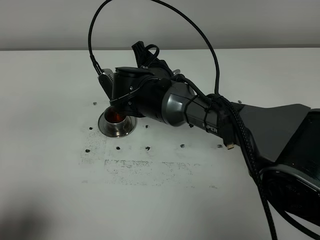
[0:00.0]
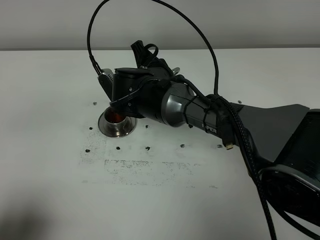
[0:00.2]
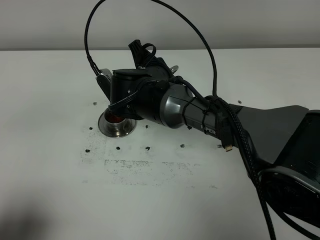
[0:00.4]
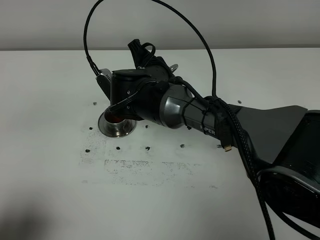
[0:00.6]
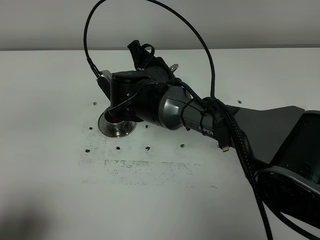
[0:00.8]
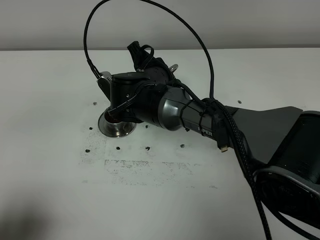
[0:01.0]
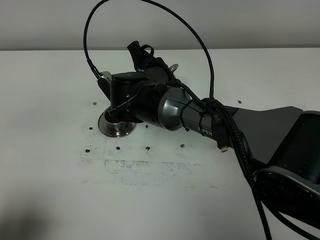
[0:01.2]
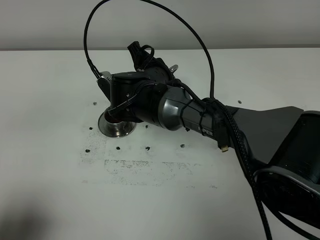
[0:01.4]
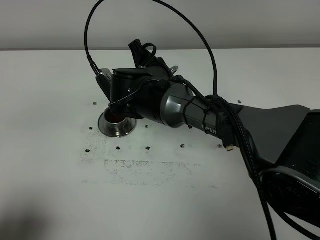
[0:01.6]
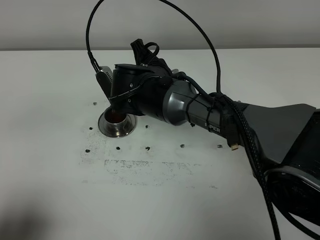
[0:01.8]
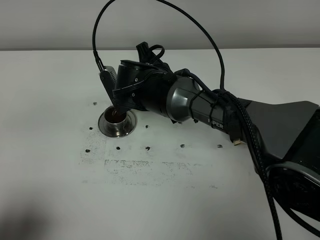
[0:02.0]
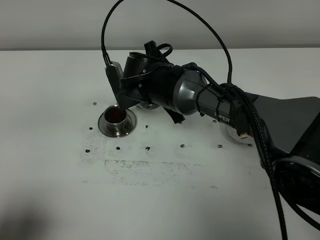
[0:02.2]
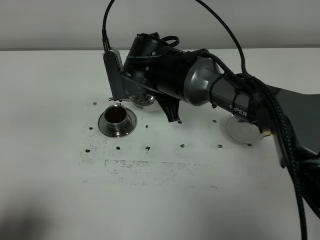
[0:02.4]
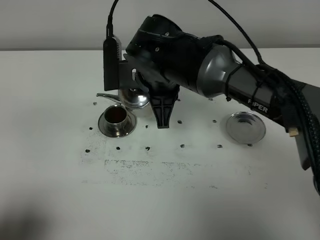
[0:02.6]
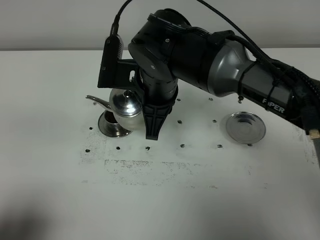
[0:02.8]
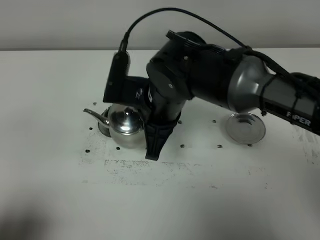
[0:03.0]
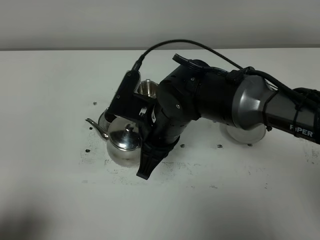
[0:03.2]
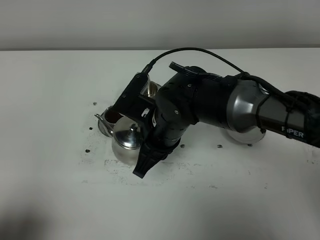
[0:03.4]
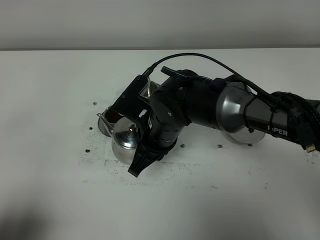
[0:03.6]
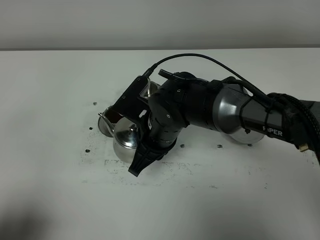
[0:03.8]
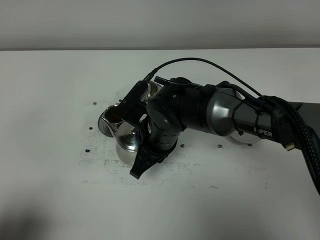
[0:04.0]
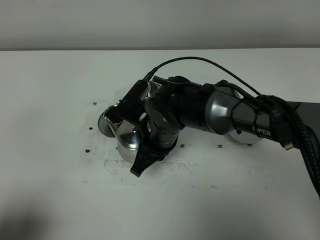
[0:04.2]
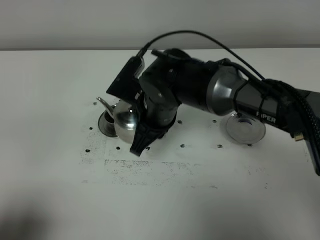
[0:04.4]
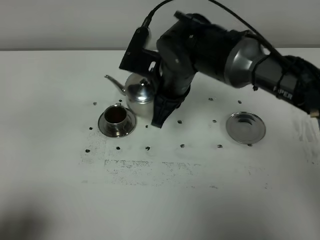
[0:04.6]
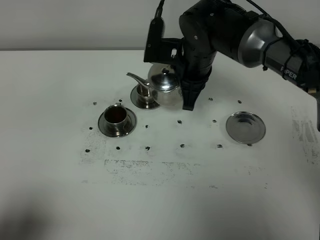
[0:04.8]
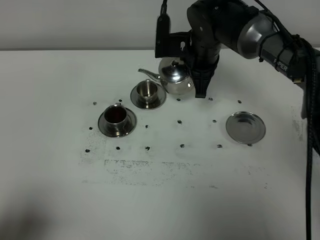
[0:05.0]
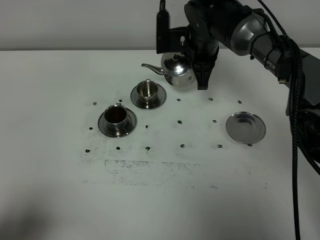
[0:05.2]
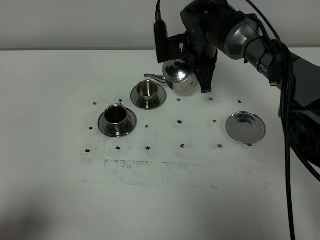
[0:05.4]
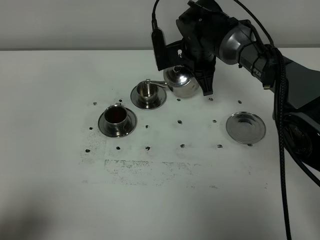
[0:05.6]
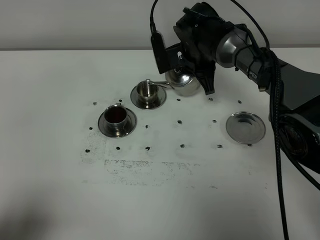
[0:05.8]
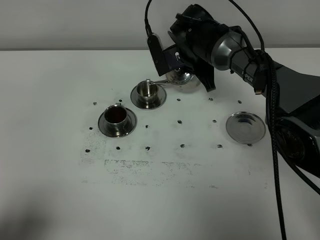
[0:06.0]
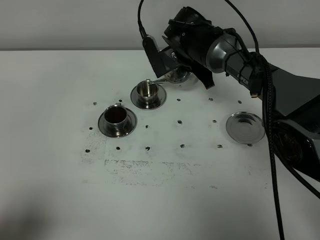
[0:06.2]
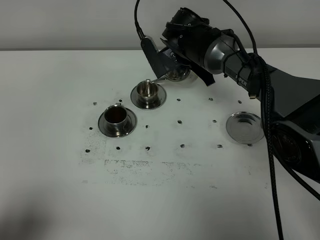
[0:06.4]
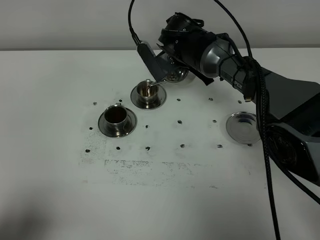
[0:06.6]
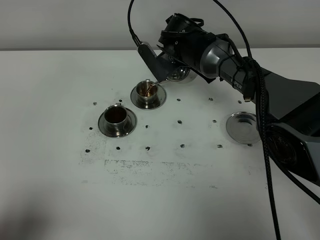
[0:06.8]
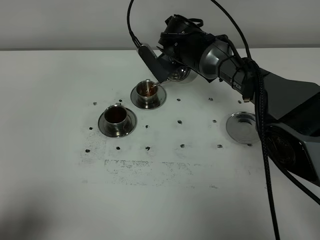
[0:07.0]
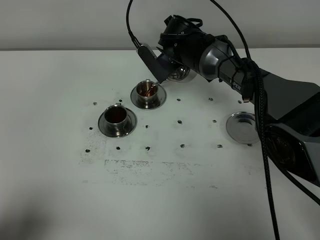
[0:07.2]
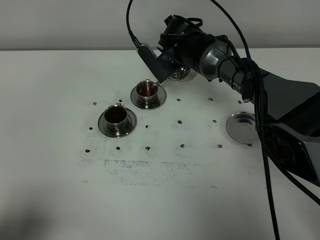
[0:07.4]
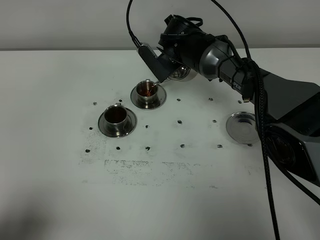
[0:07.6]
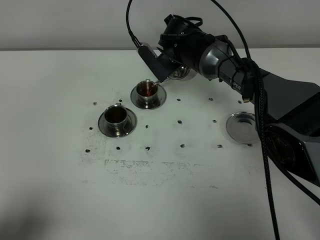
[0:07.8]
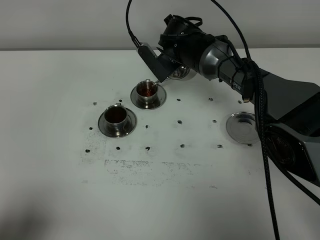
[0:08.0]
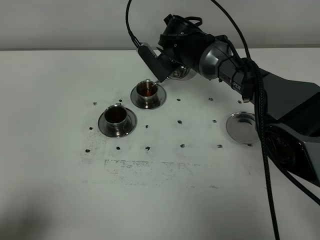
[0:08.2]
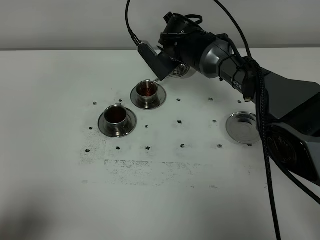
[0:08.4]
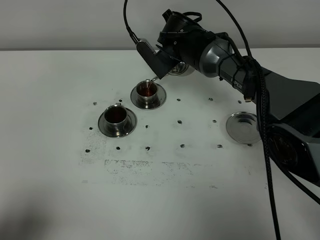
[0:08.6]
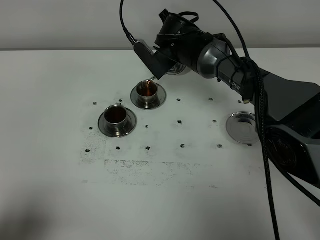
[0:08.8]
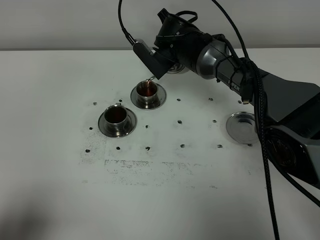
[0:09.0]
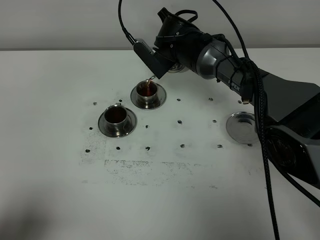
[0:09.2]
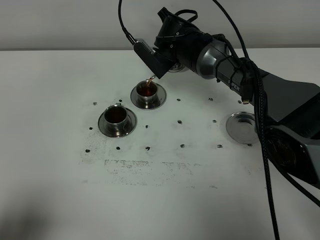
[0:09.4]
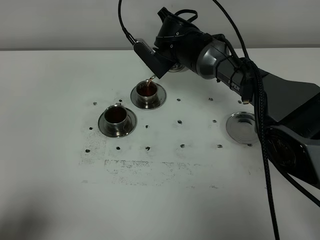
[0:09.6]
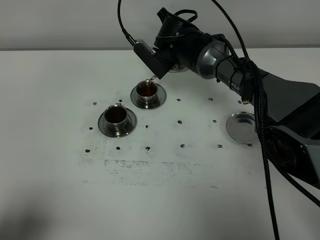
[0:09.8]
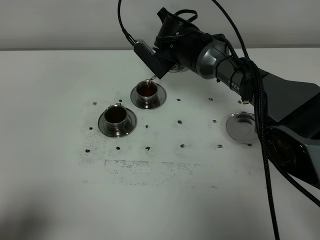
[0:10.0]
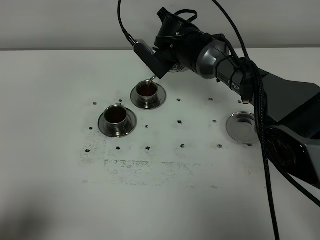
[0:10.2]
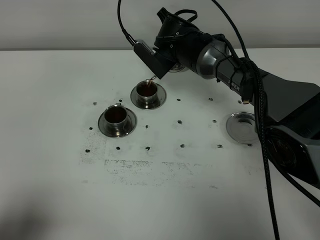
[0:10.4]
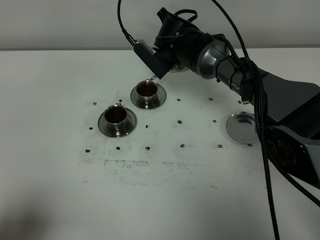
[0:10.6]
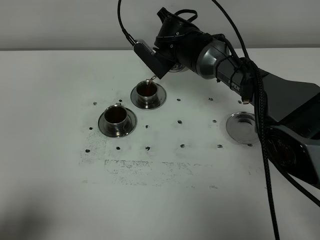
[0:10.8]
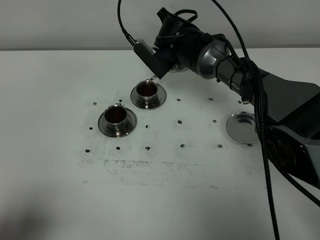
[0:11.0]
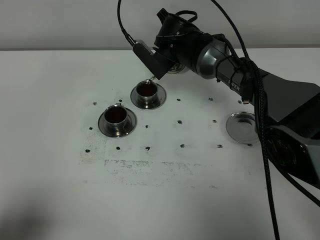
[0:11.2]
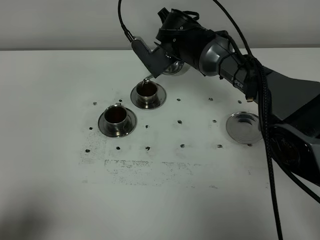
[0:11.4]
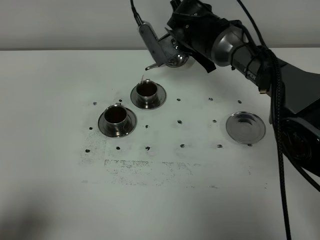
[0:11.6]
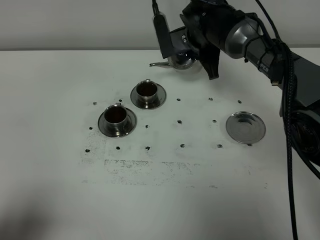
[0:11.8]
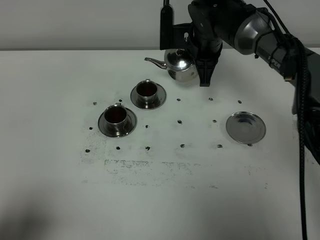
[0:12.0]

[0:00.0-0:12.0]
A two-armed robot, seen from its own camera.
Task of the whole recording: grasp the stainless steel teapot and pour the tea into the two stainless steel teacups one by one, put the stainless steel teapot back in its original place.
Step, 0:00.0 to 0:11.6: Pour tea into the teacup with the right gripper.
0:00.0 to 0:01.6: The grippers move only a little.
0:01.6 to 0:03.0: The right gripper is displaced backward by roughly 10 cm.
0:04.4 to 0:06.0: The right gripper moves forward and to the right, approximately 15 cm.
0:06.0 to 0:07.6: The grippers move only a little.
0:07.6 to 0:09.0: The grippers move only a little.
0:09.0 to 0:10.4: The two grippers keep their place.
0:10.4 to 0:12.0: The right gripper shifts by approximately 5 cm.

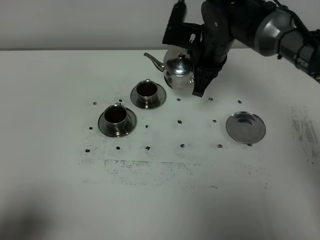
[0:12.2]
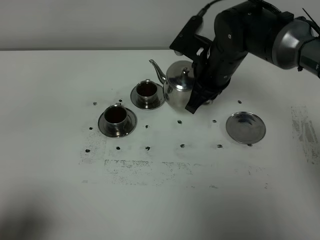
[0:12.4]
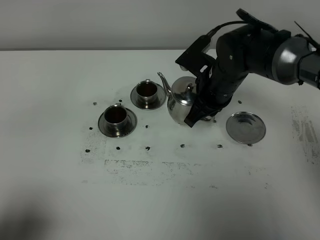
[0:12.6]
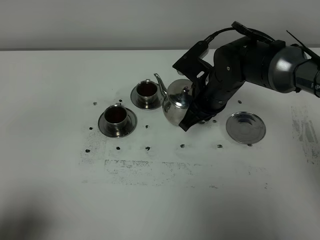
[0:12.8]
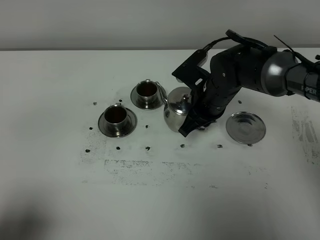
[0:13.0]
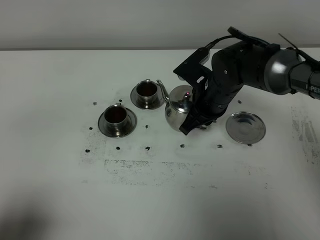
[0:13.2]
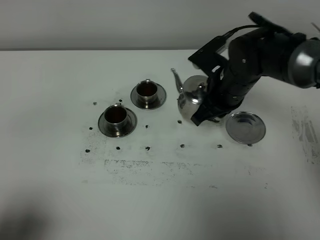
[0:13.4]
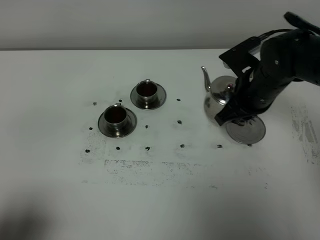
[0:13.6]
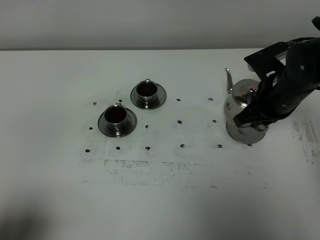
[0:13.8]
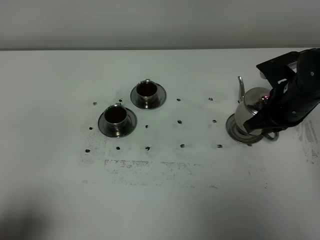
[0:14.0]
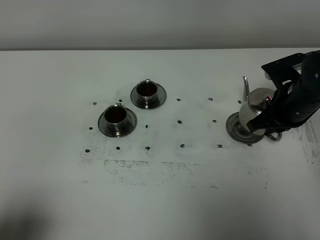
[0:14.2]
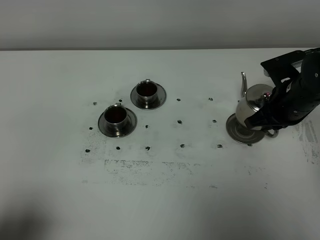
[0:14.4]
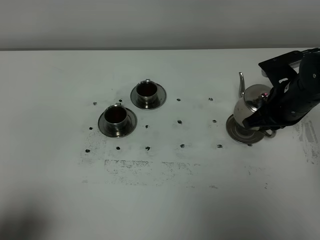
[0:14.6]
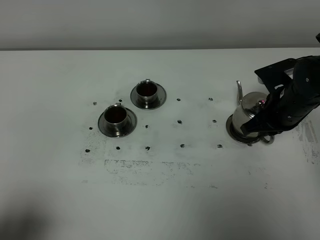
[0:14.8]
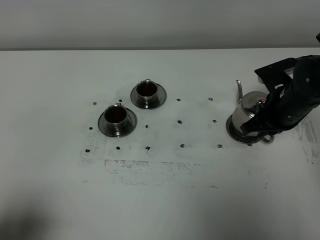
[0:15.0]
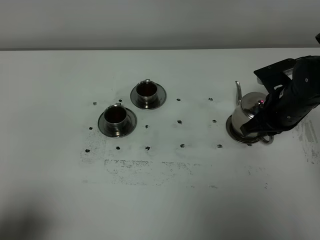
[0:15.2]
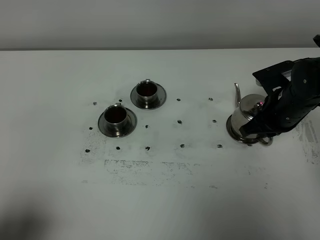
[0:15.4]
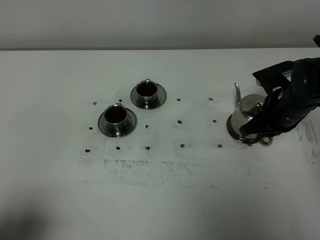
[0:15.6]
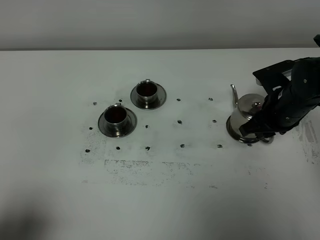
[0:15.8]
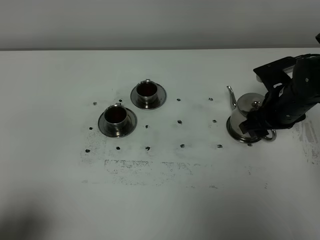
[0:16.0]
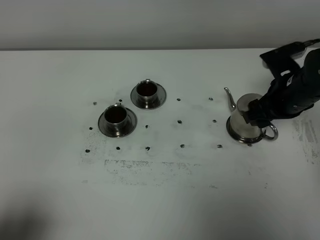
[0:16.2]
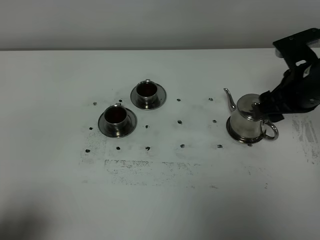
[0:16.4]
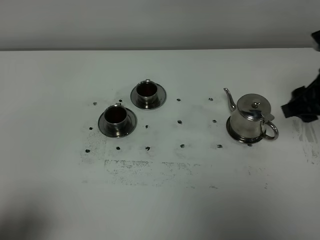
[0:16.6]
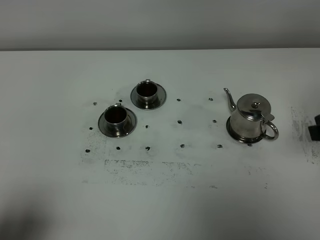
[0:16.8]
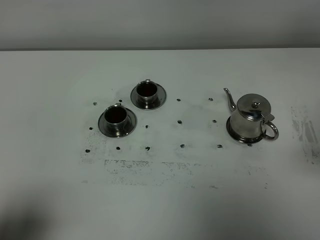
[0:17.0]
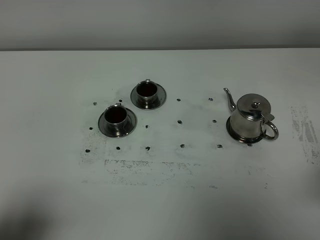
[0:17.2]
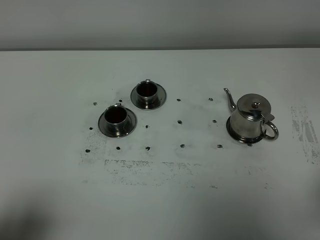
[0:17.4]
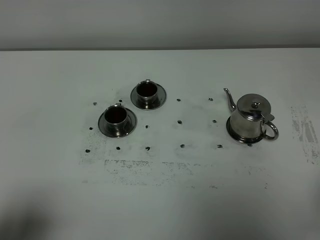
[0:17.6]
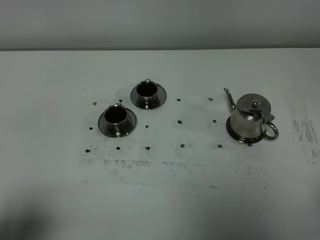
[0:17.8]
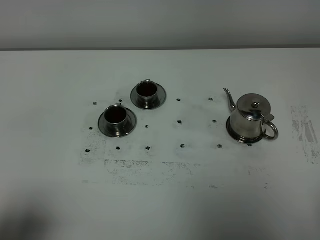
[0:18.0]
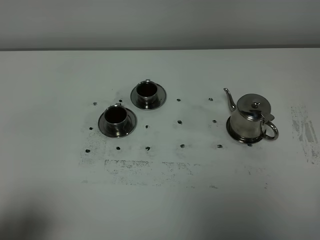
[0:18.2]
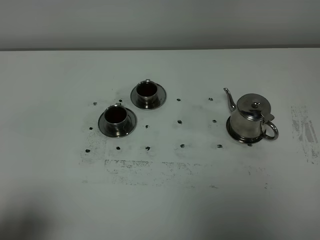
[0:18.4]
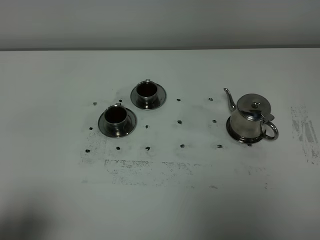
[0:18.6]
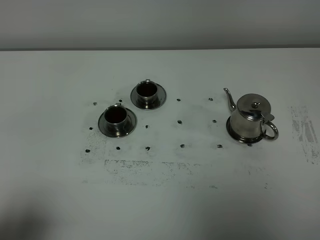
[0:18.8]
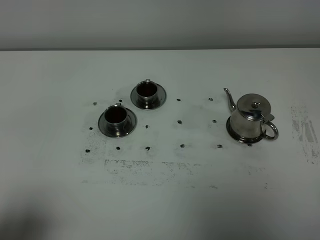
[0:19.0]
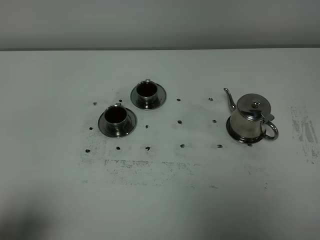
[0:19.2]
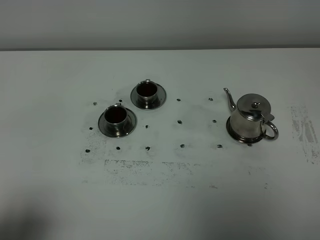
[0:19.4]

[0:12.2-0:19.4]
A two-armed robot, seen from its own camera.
Task of the whole recording: grasp the stainless steel teapot and pour the tea into the two stainless steel teacups one by one, put the stainless steel teapot back in its original place.
0:12.2 to 0:13.6: The right gripper shifts roughly 10 cm to the right and backward.
0:13.6 to 0:15.0: The right gripper shifts approximately 5 cm to the right.
0:15.0 to 0:16.6: The right gripper is displaced upward and backward by about 15 cm, and opens its fingers.
0:16.6 to 0:18.0: The right gripper moves backward, approximately 25 cm, and closes up.

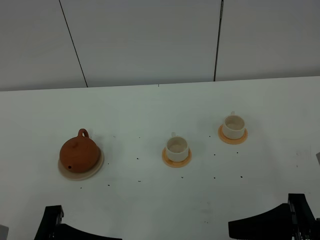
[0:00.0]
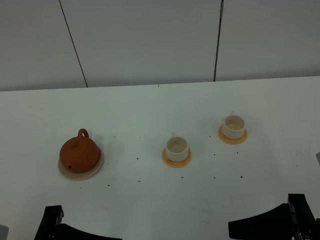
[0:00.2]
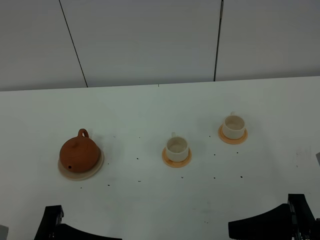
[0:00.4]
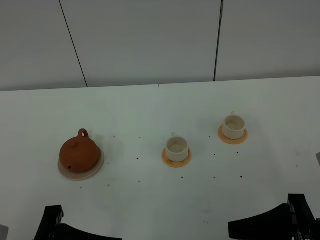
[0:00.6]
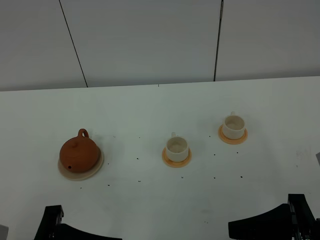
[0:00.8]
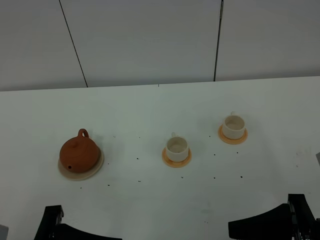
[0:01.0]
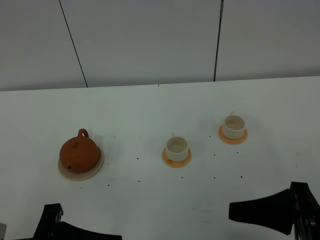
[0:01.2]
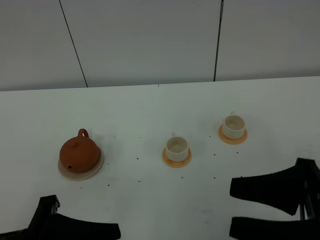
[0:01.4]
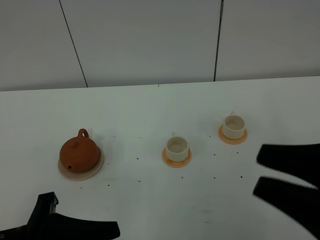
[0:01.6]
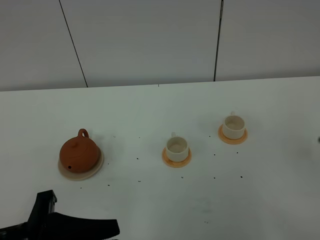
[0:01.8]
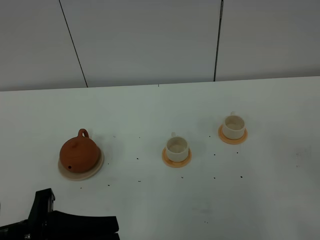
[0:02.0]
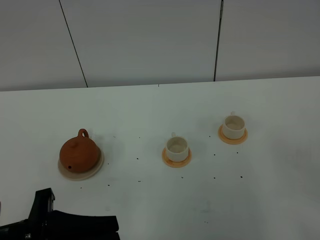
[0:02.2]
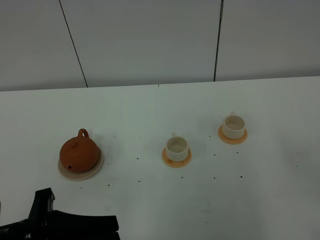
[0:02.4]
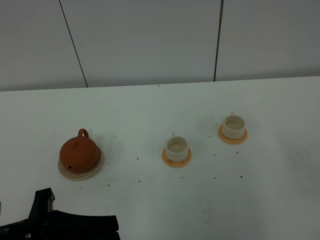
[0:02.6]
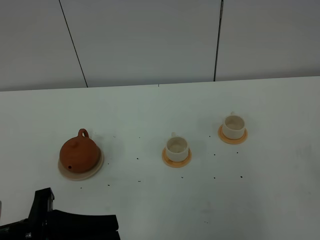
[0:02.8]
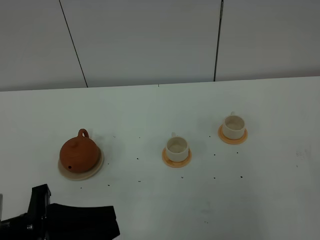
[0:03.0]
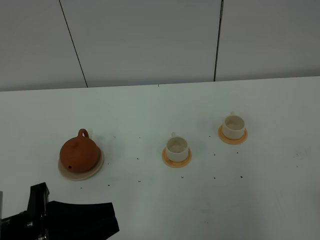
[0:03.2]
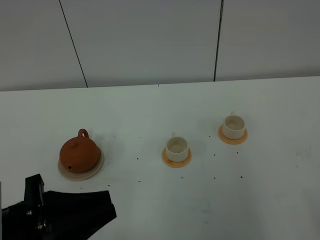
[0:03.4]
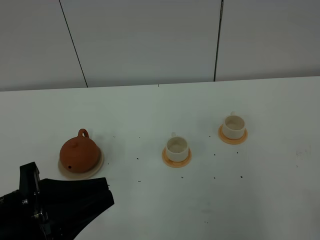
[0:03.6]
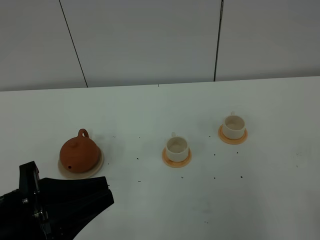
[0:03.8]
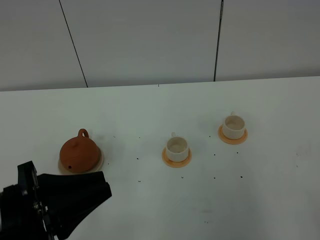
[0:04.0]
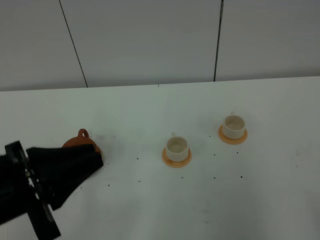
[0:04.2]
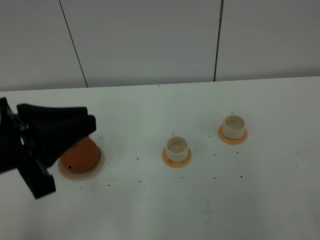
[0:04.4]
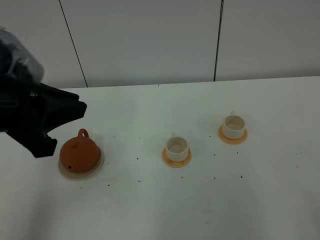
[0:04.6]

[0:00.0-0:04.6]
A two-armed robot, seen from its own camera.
Task of the whole recording: grasp the brown teapot and pour the tea into the two white teacups one by one, put the brown teapot back in its original place.
0:00.0 to 0:01.6: The right gripper shifts some 10 cm upward.
0:01.6 to 0:03.0: The right gripper travels backward and to the right by approximately 15 cm, and closes up.
0:03.0 to 0:04.6: The left gripper shifts some 20 cm upward and forward.
